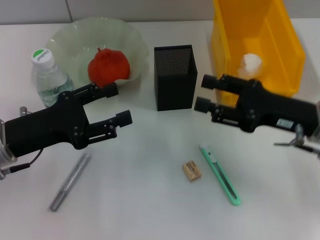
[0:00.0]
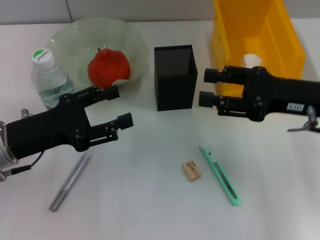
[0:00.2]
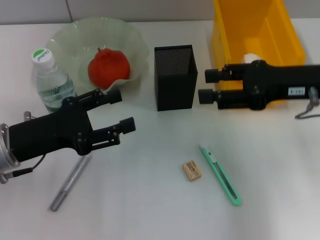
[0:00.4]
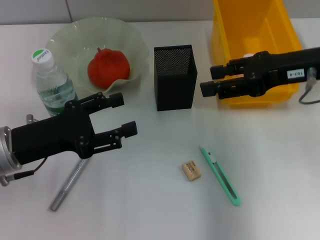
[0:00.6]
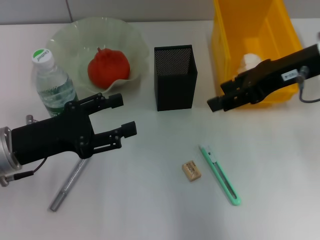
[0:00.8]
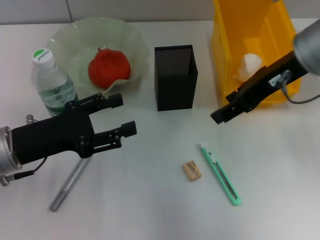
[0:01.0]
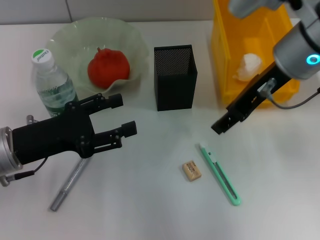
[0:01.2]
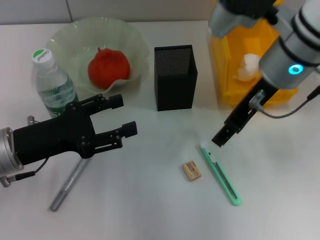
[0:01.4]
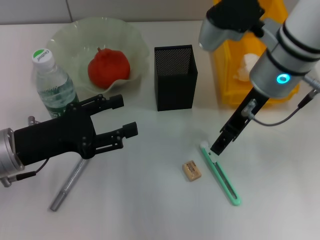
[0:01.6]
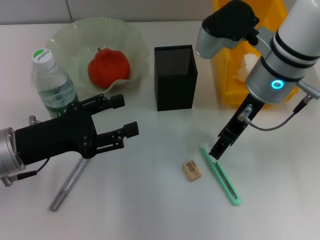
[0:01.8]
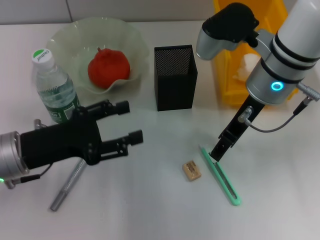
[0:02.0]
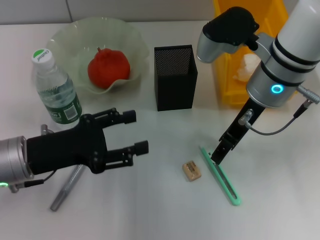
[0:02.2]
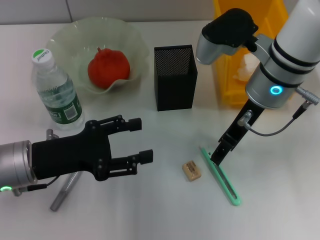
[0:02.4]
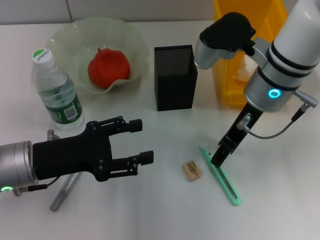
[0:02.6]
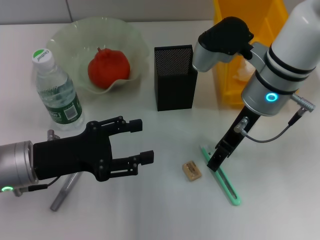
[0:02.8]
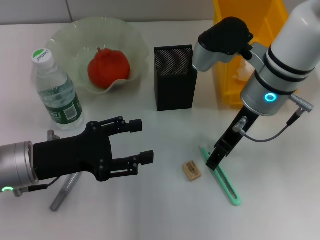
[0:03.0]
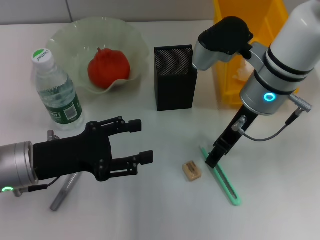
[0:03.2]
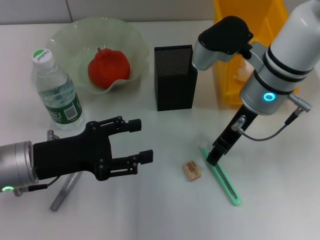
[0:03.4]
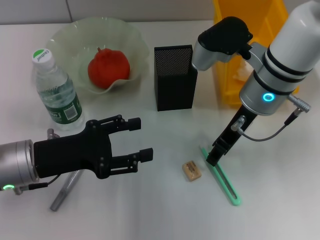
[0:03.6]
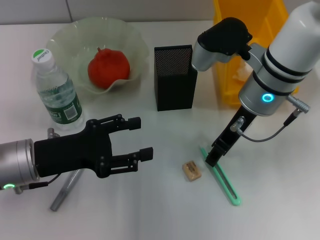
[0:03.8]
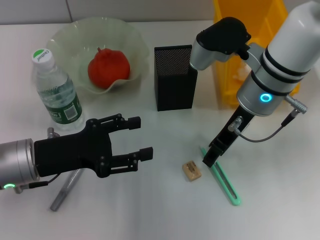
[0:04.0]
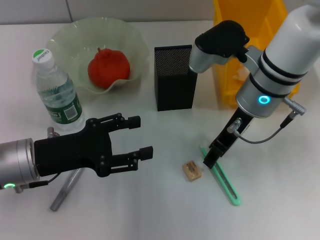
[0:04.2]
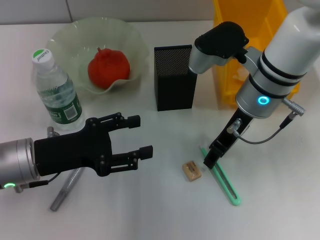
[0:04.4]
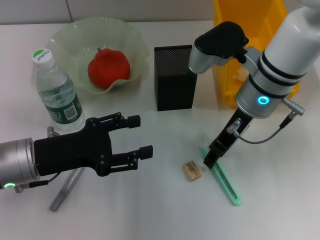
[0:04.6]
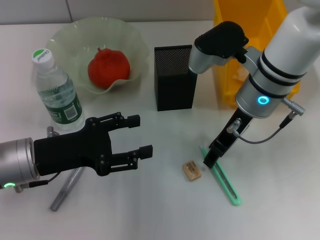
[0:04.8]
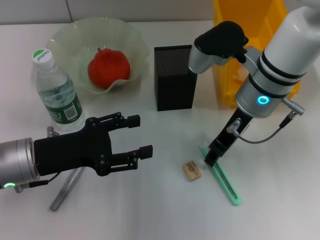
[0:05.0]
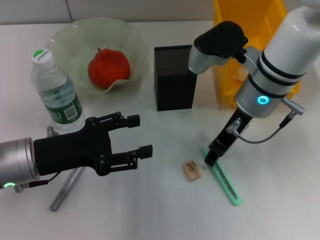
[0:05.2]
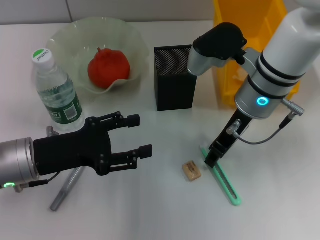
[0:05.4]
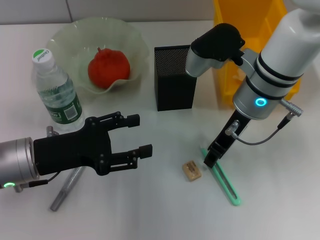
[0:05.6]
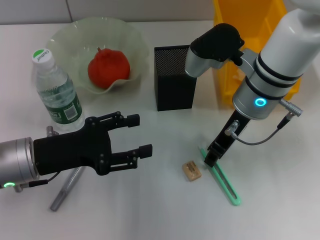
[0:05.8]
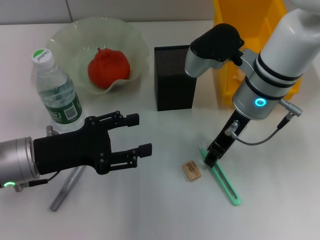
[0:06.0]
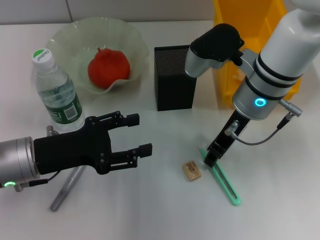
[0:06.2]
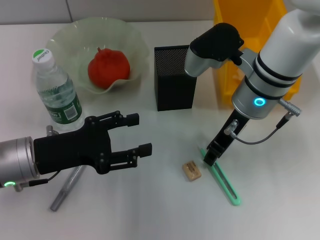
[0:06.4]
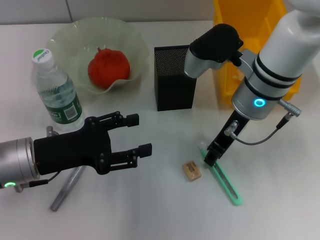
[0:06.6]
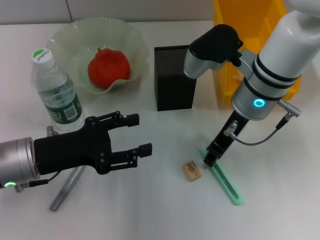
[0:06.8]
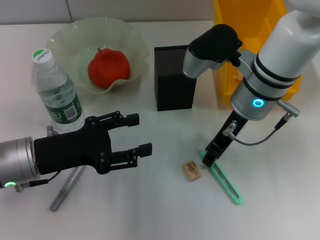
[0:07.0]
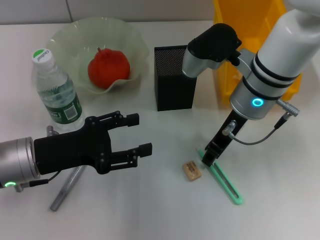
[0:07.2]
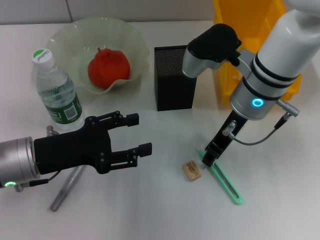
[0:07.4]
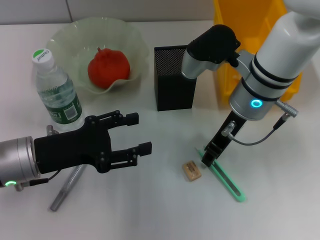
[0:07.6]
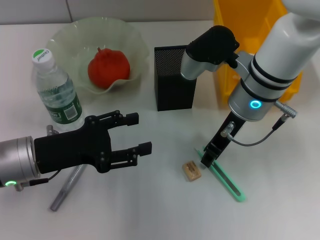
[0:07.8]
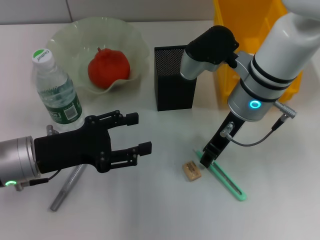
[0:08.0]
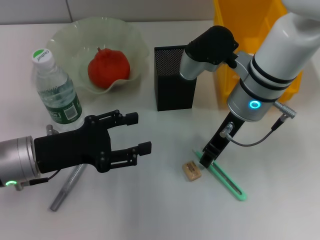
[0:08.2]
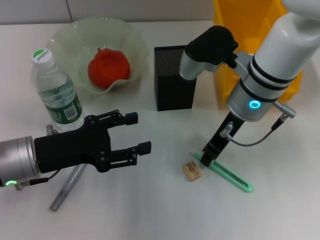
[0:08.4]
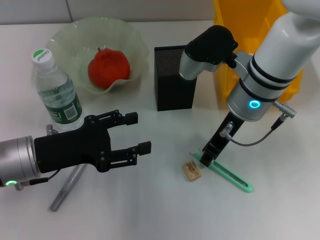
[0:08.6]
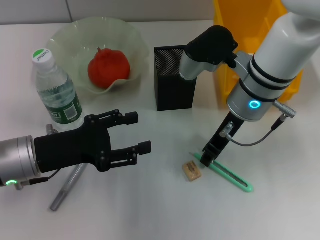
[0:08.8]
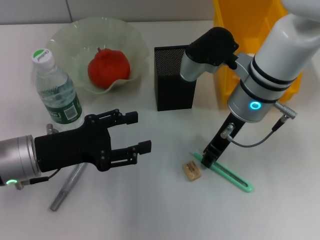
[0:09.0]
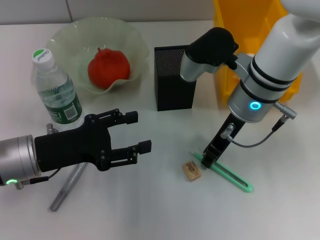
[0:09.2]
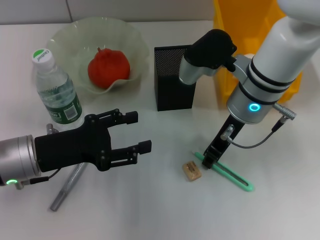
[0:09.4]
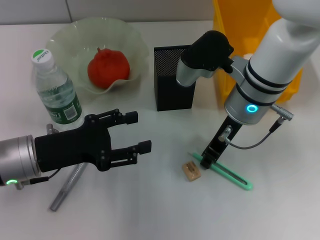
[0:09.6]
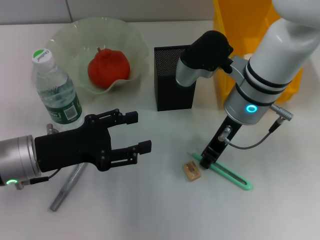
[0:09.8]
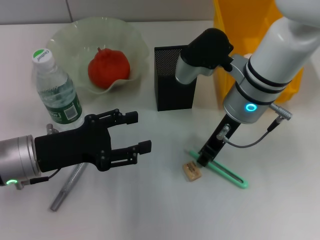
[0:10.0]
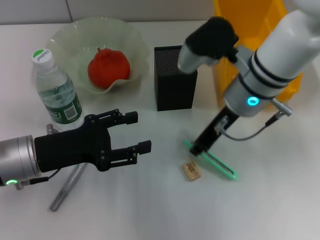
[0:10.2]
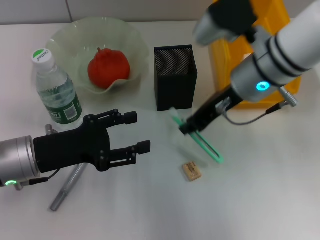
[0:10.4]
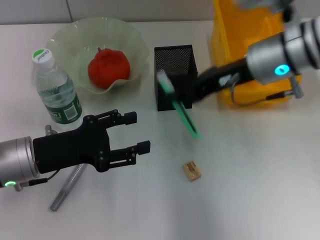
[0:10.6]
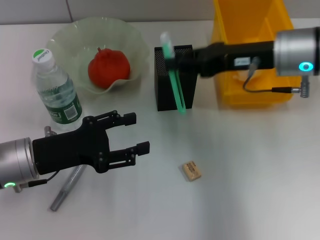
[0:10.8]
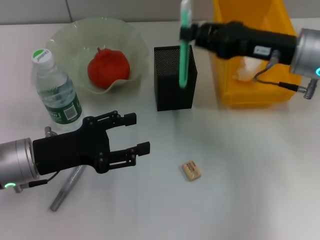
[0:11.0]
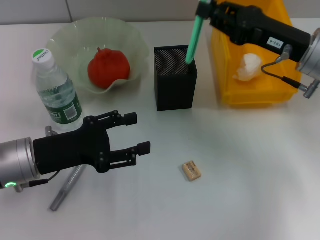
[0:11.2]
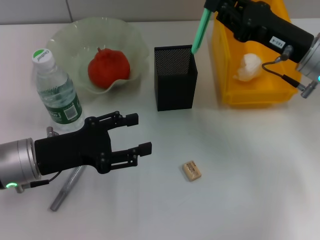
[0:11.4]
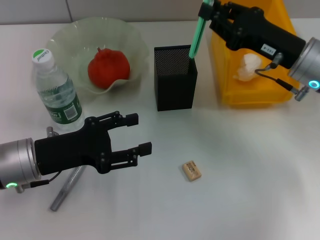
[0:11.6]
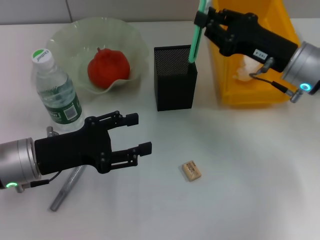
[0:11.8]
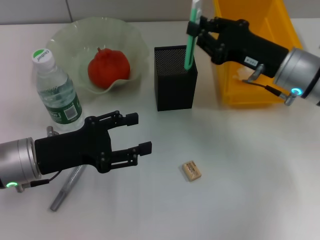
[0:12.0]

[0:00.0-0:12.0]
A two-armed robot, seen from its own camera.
Step, 0:00.0 to 0:09.4: Grab the blue utility knife with the right hand.
0:00.0 to 0:01.6: The right gripper shifts some 15 cm to the left, upward and forward.
0:03.0 to 0:04.4: Both grippers stay about where they are.
0:04.4 to 0:09.0: The two grippers keep their place.
0:09.0 to 0:10.4: The grippers move only a little.
0:10.4 to 0:12.0: The right gripper shifts some 10 cm to the right and downward.

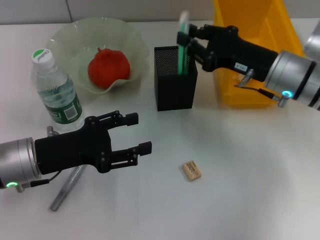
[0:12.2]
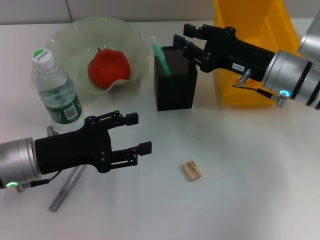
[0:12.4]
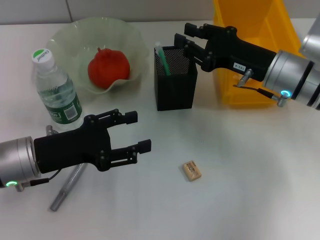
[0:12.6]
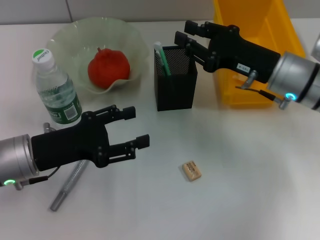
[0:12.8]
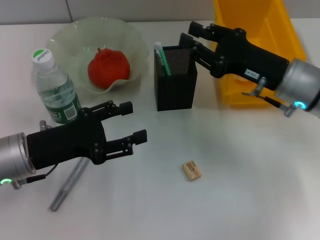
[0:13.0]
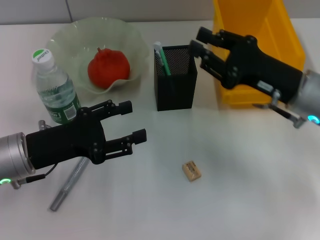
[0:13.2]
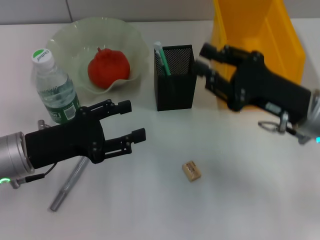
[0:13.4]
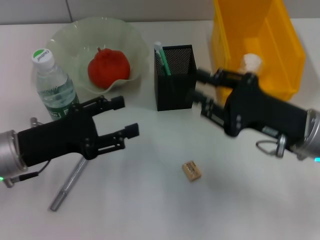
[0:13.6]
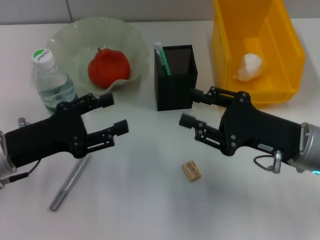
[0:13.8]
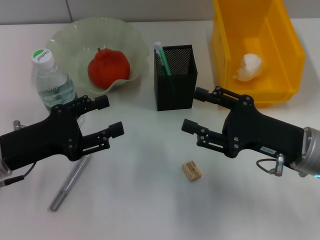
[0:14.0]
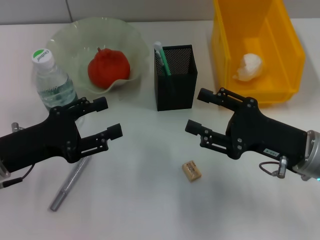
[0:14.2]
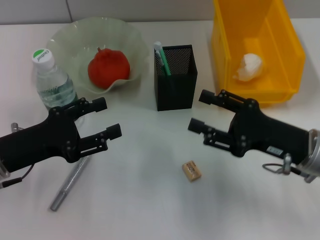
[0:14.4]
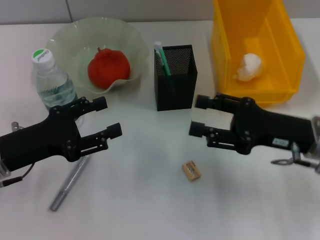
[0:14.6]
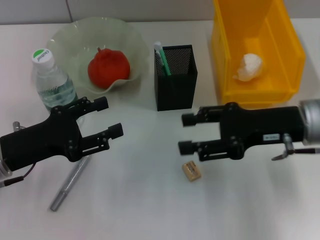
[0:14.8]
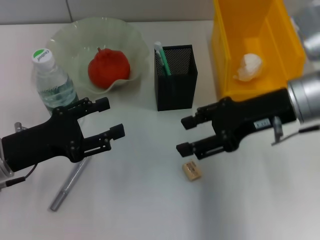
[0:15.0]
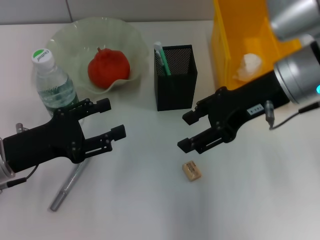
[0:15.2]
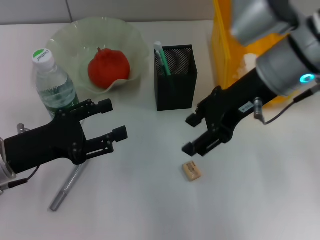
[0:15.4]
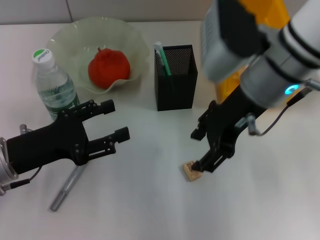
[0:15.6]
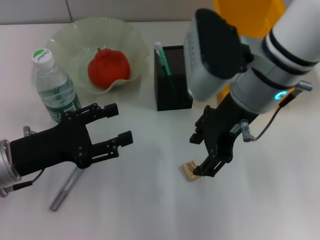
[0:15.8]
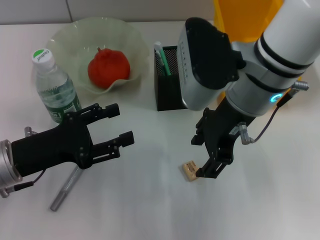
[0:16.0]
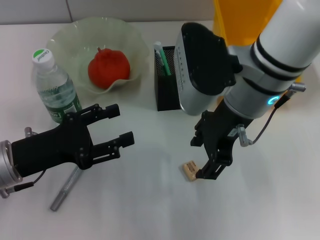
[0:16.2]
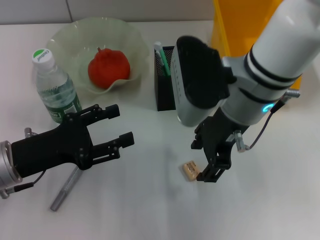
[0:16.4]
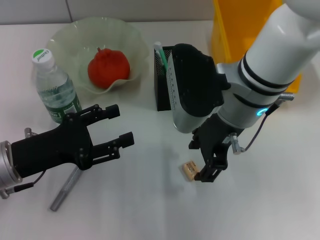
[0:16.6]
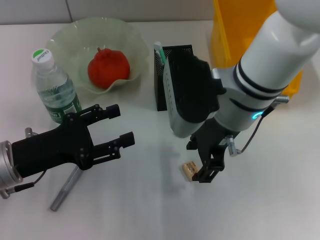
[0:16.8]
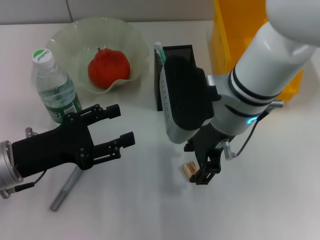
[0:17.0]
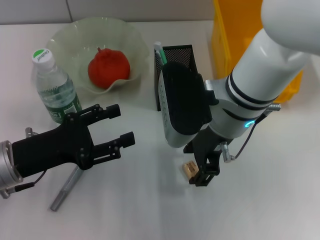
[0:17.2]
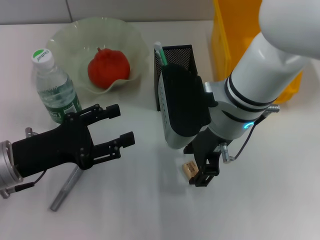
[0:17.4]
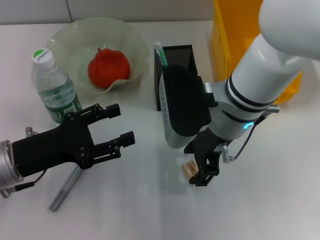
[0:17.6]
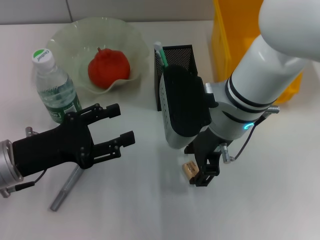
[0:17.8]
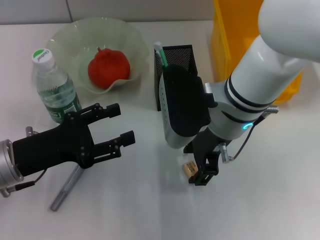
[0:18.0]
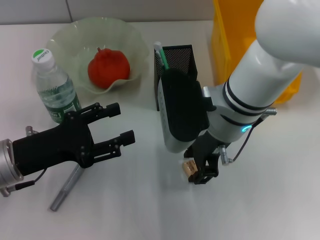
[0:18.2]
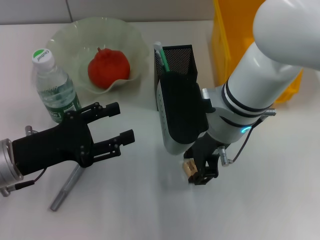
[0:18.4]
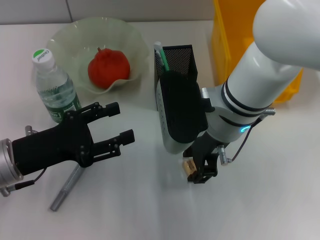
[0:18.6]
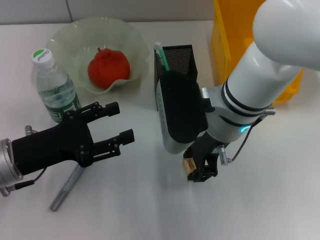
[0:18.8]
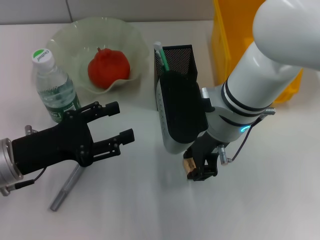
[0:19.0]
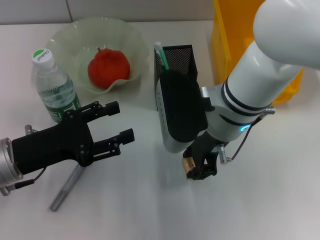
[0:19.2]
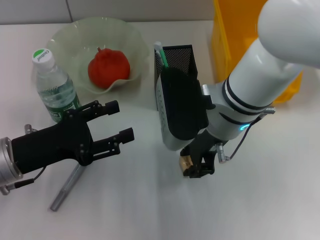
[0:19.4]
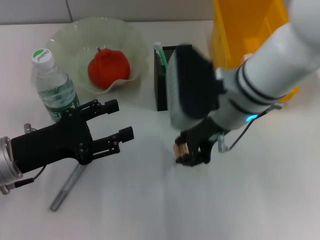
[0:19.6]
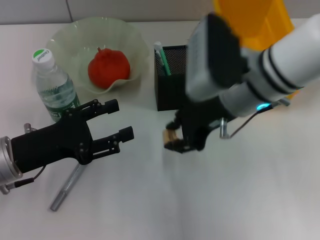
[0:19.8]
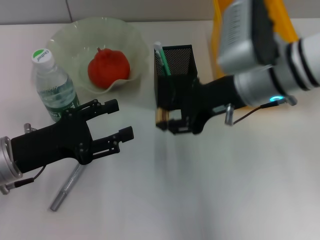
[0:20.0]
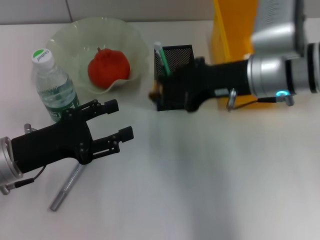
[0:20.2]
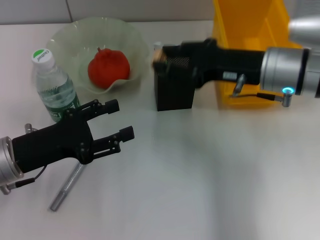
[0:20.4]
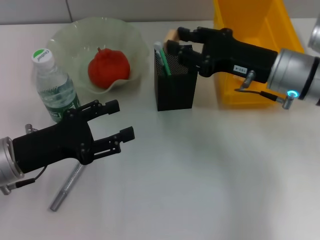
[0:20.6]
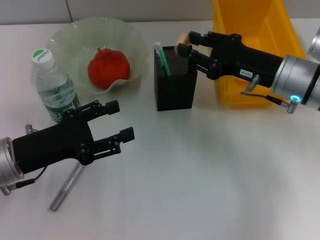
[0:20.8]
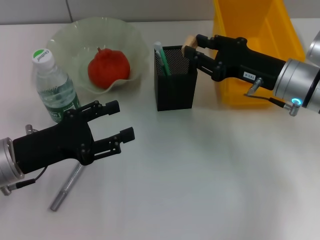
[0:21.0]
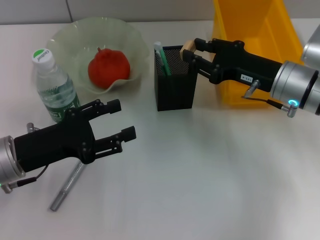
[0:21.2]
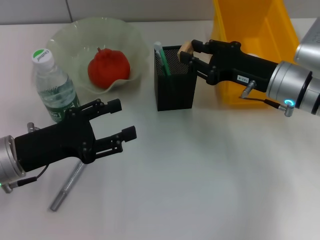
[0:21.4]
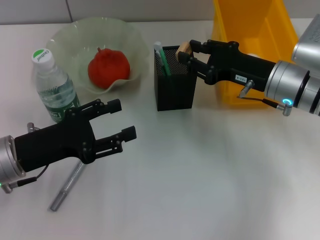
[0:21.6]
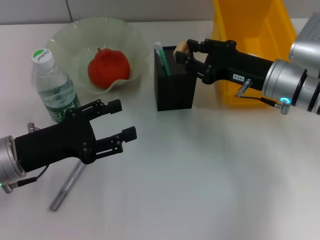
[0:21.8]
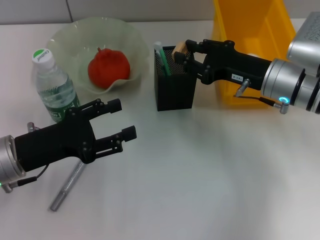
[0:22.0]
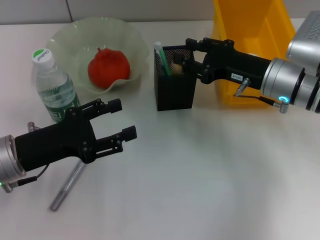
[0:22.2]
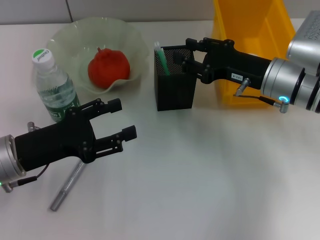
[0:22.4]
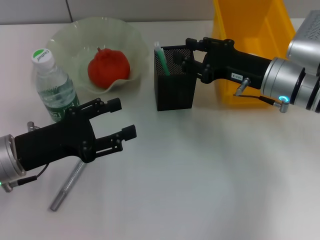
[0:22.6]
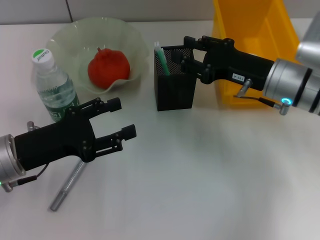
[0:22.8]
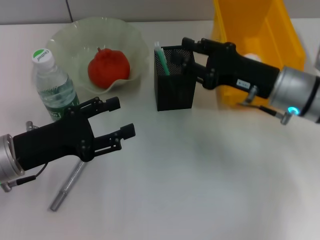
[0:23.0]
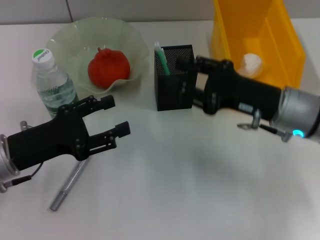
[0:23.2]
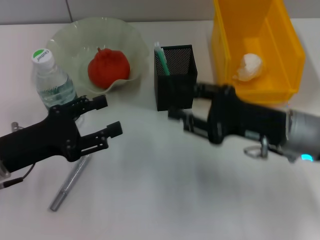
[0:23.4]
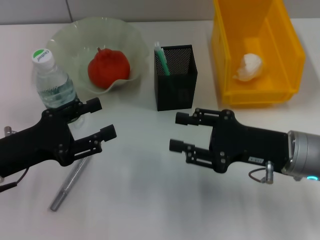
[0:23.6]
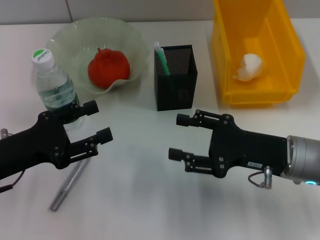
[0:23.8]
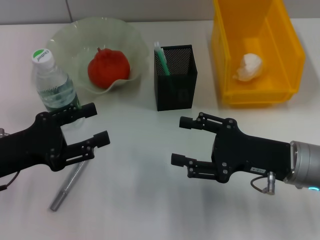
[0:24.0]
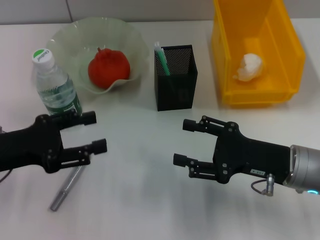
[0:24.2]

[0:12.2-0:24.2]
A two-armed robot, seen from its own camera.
Step, 0:12.8 to 0:19.0: Grab the eraser with the right hand.
Step, 0:19.4 to 0:22.6: Put the eraser into the pen holder with the right hand.
0:12.2 to 0:13.8: The right gripper goes some 10 cm backward, and opens up.
0:13.8 to 0:15.2: The right gripper shifts about 15 cm upward and forward, and opens up.
0:15.2 to 0:16.6: The right gripper heads to the left, covering about 10 cm.
0:16.6 to 0:18.2: There are only small adjustments of the grippers.
0:18.2 to 0:19.8: The right gripper changes place by some 5 cm, and closes.
0:19.8 to 0:21.2: The right gripper travels to the right and downward by some 10 cm.
0:21.2 to 0:22.6: Neither gripper changes place.
0:22.6 to 0:24.2: The right gripper shifts some 10 cm backward, and opens its fingers.
